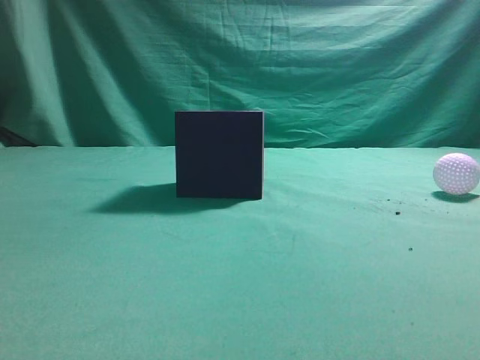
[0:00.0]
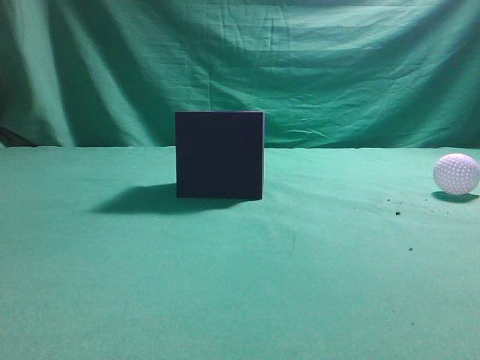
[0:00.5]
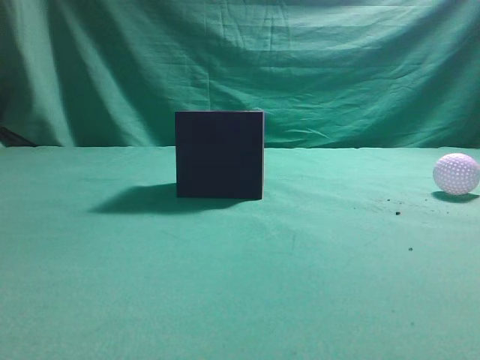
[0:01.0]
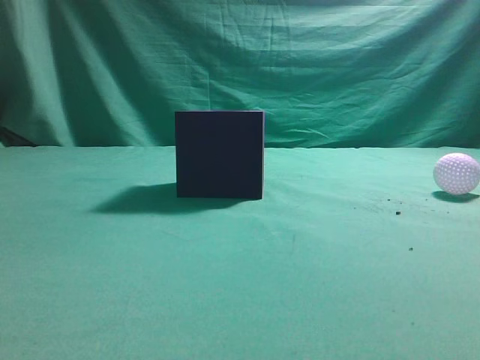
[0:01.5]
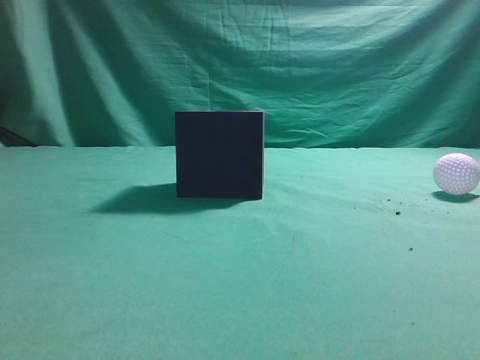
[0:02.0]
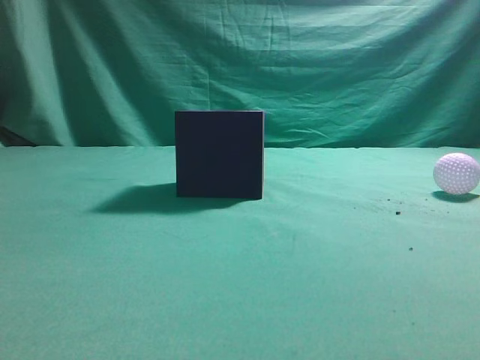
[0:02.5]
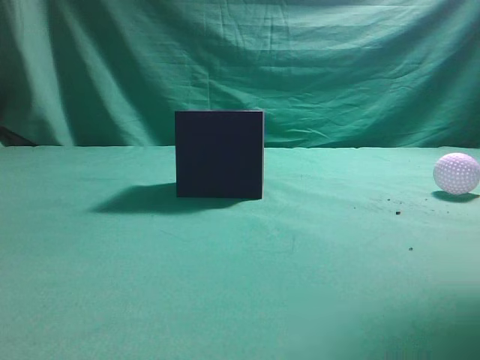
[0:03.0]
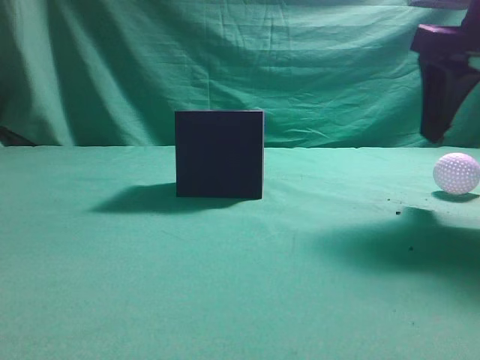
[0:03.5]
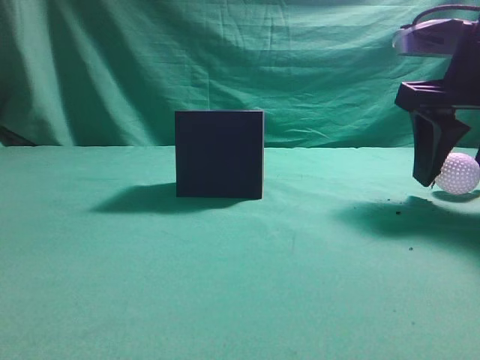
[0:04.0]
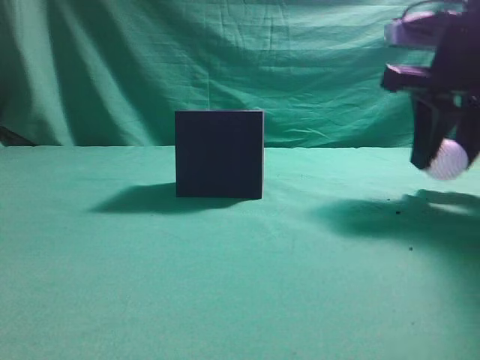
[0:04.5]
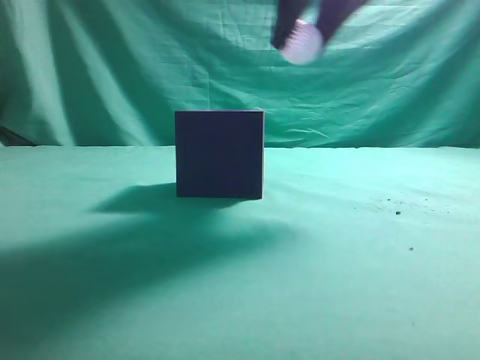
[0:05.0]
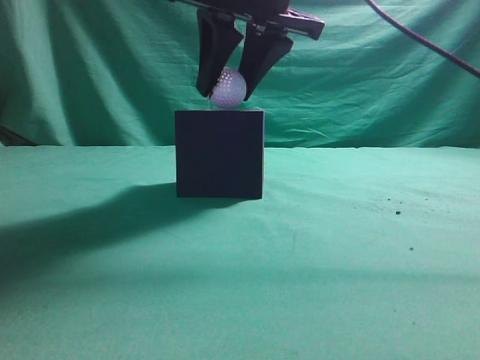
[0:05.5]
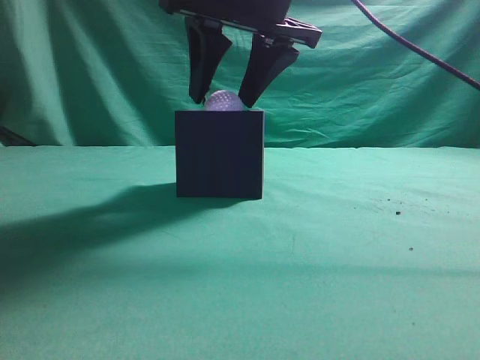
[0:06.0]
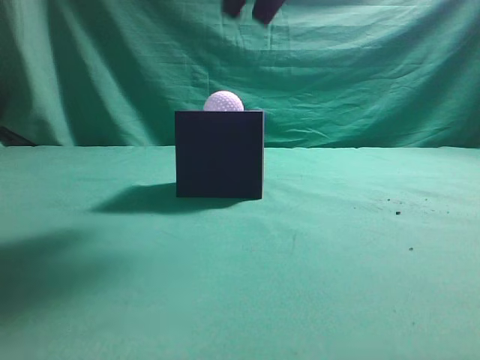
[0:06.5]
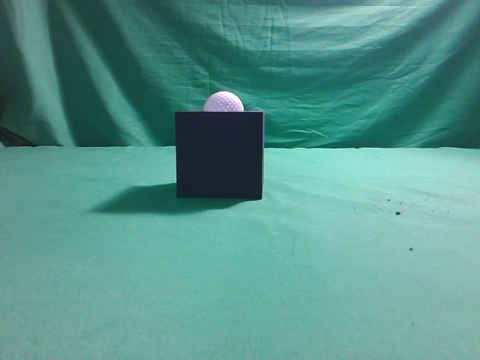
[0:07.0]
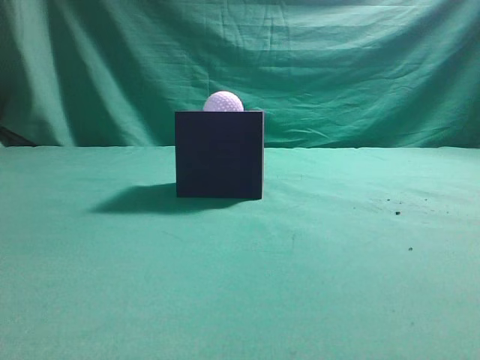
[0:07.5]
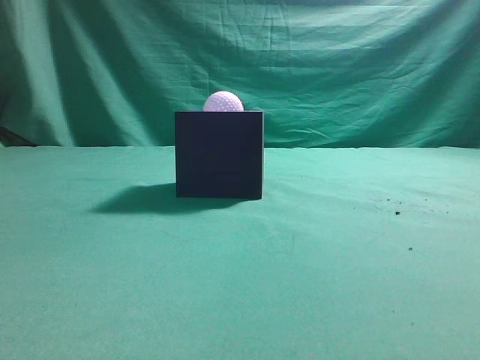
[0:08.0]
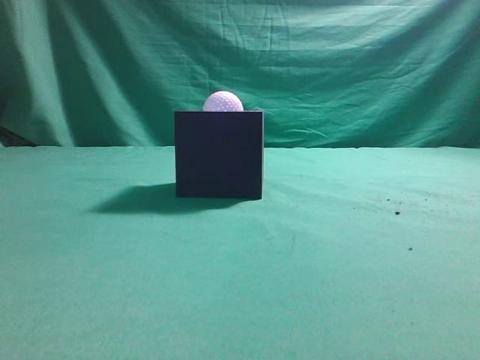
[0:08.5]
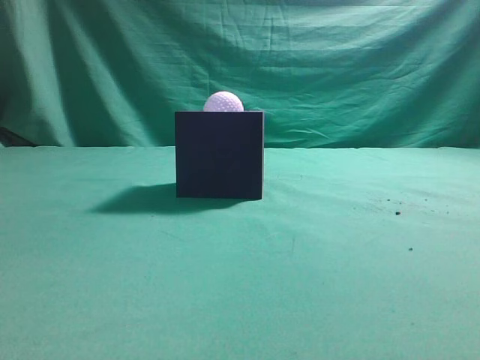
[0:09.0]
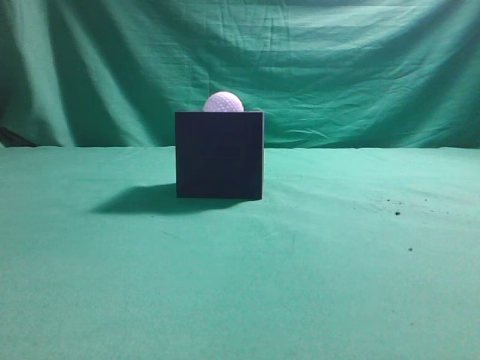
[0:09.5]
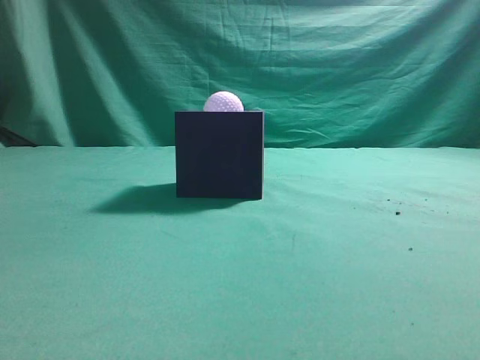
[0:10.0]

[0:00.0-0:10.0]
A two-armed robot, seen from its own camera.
Task of the whole recording: Pick up the ball and place it in the circular groove above the cube.
Step, 0:00.0 to 0:04.5: Grasp the sphere on the table.
Step, 0:05.0 to 0:06.0: Place the sphere into the sphere-shaped recess.
0:02.0 to 0:04.0: The right gripper goes about 25 cm forward and downward, and opens.
0:04.0 to 0:06.0: The right gripper moves to the left, roughly 20 cm.
0:06.0 to 0:08.0: The right gripper goes some 40 cm backward, to the right and upward, and closes its fingers.
